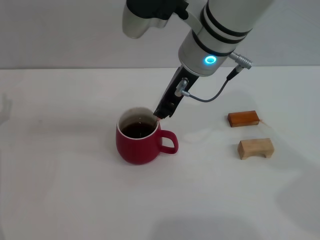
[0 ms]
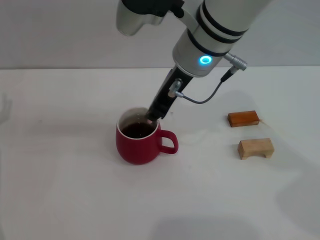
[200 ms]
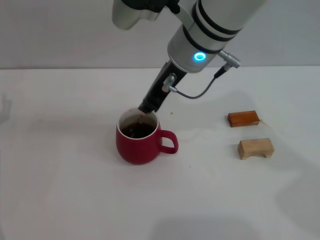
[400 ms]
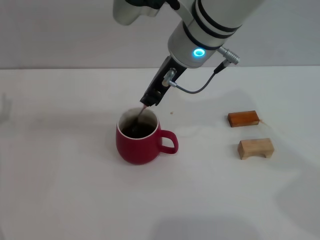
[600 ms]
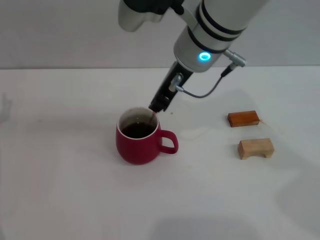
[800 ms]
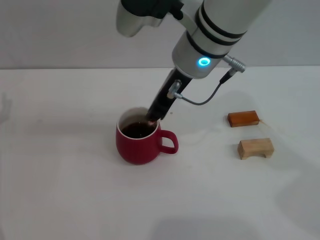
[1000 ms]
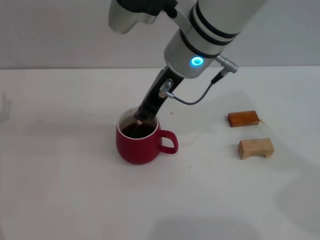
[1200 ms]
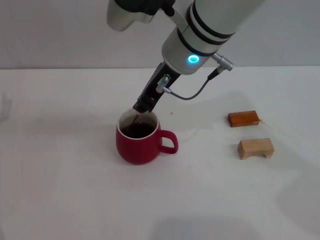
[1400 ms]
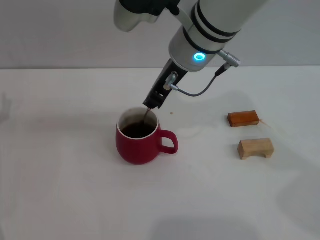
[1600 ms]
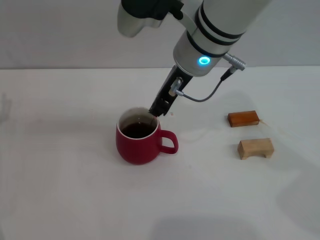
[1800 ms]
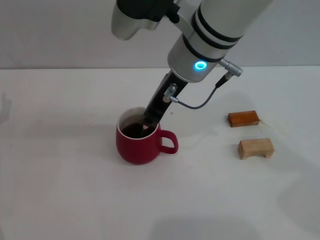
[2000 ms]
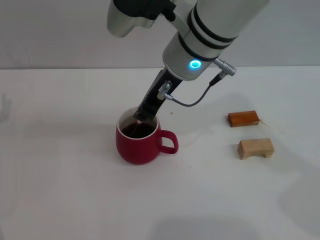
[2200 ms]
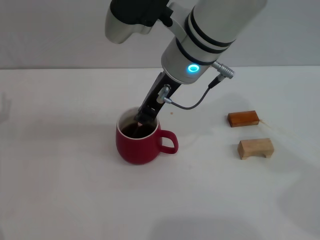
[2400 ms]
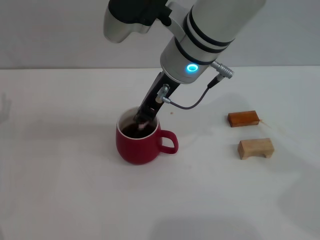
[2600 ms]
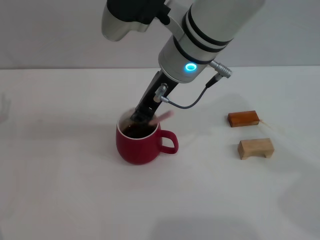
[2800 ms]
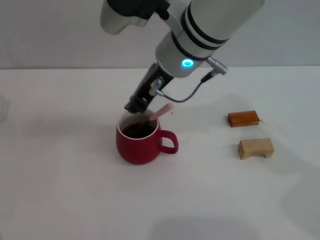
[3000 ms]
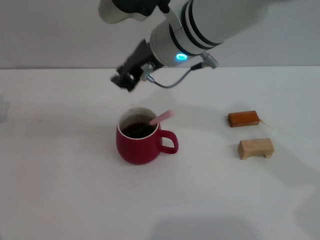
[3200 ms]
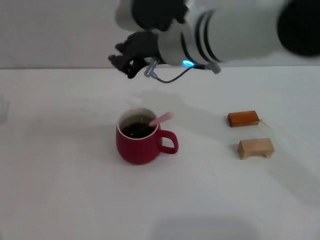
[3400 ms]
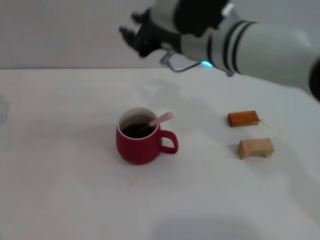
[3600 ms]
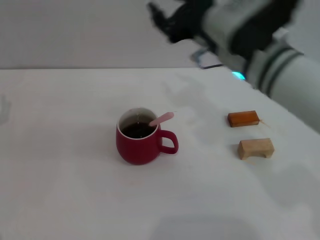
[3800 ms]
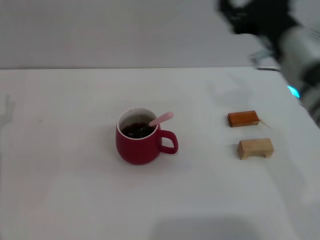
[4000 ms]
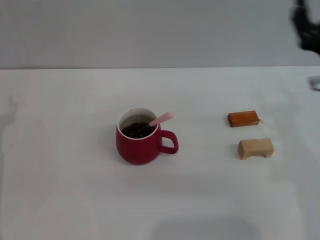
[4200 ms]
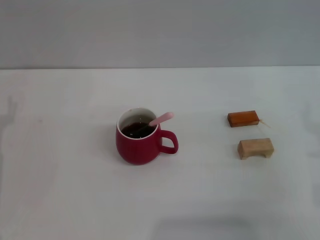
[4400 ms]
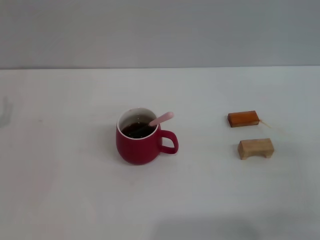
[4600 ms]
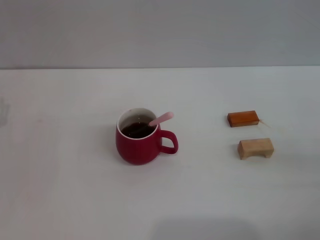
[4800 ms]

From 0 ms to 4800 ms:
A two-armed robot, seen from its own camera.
Task of the whole recording: Move the red cup to the center, lift the pink spoon, stir it three times in the cup, and put the spoon into the cup.
Step, from 0 ms to 3000 ms: Stir the coffee in the cup with the right gripper.
From 0 ms to 1600 ms: The grippers make only small movements.
From 1600 ms to 3200 ms: The grippers move only a little.
From 3200 ms to 4800 ms: The right gripper travels to the right, backward and downward by approximately 40 cm, and opens.

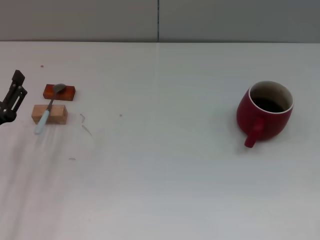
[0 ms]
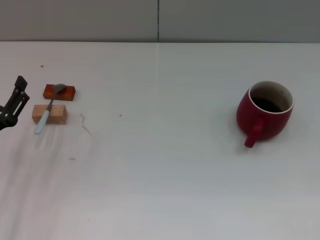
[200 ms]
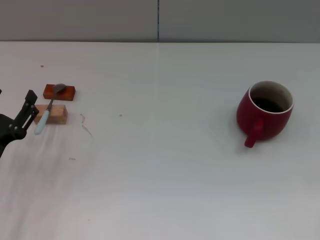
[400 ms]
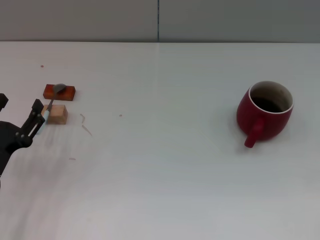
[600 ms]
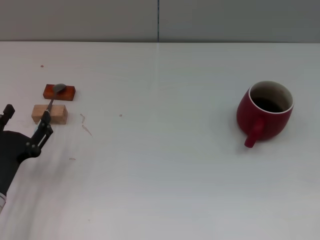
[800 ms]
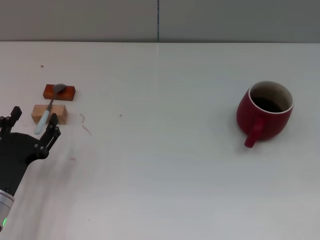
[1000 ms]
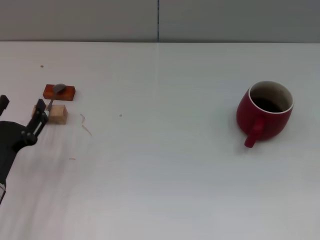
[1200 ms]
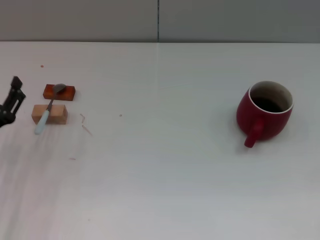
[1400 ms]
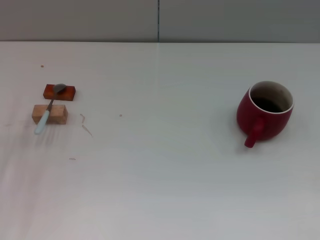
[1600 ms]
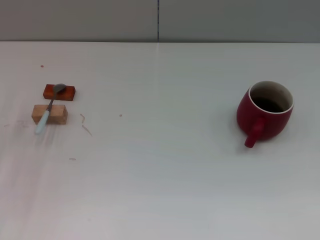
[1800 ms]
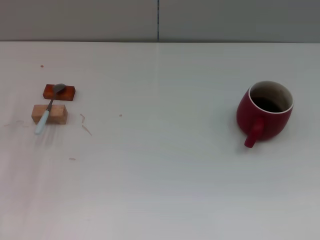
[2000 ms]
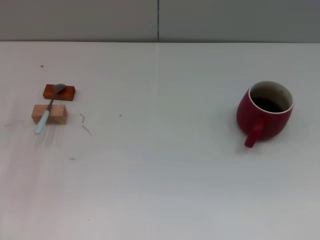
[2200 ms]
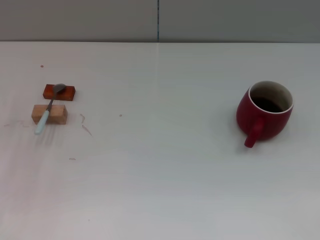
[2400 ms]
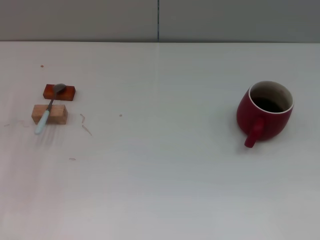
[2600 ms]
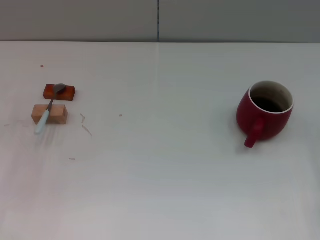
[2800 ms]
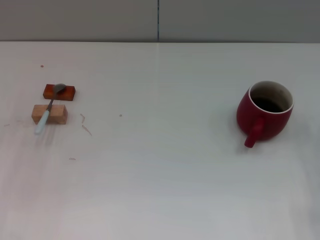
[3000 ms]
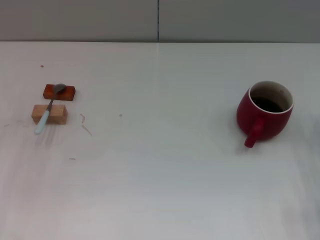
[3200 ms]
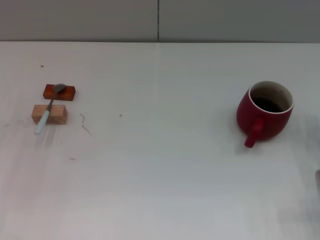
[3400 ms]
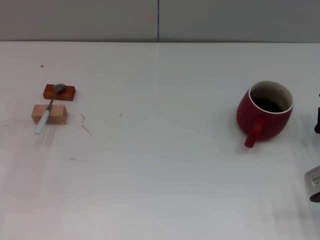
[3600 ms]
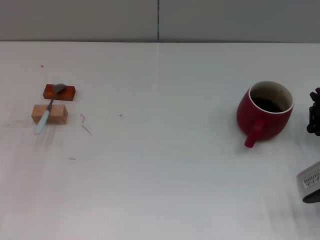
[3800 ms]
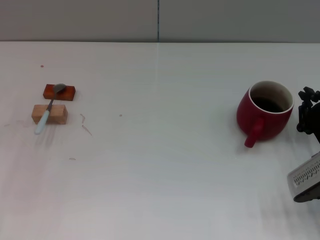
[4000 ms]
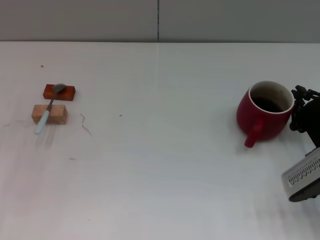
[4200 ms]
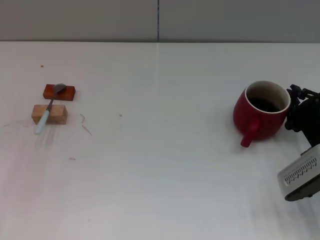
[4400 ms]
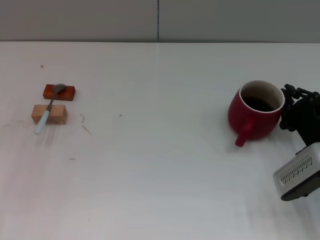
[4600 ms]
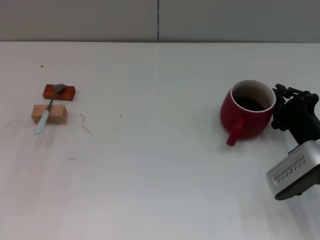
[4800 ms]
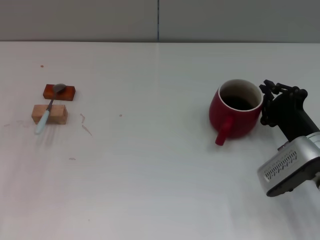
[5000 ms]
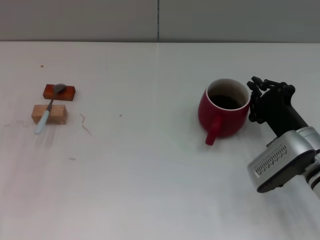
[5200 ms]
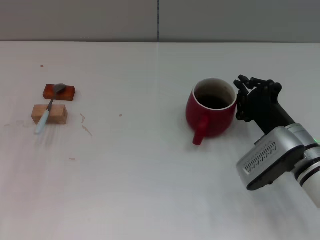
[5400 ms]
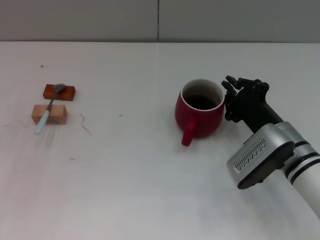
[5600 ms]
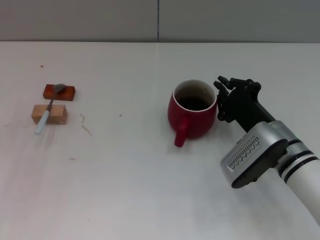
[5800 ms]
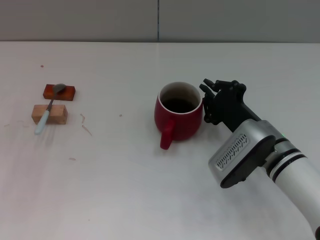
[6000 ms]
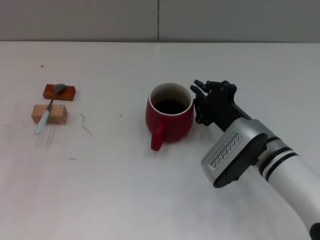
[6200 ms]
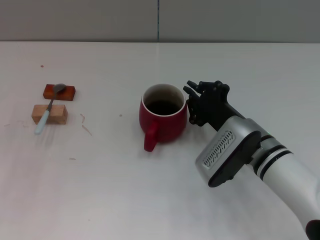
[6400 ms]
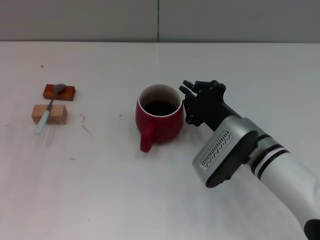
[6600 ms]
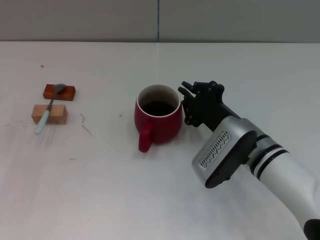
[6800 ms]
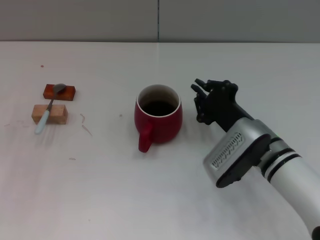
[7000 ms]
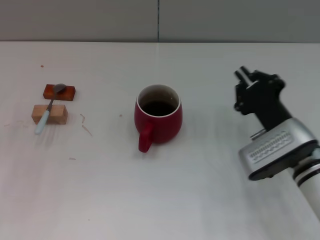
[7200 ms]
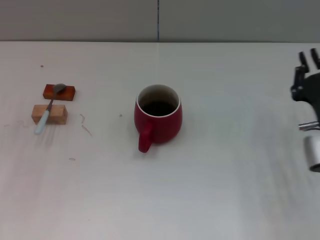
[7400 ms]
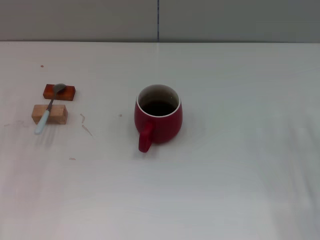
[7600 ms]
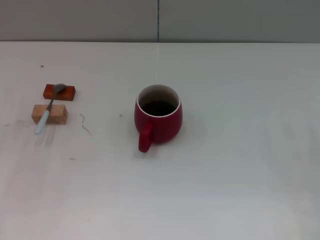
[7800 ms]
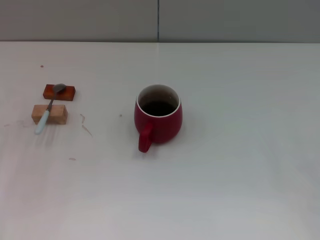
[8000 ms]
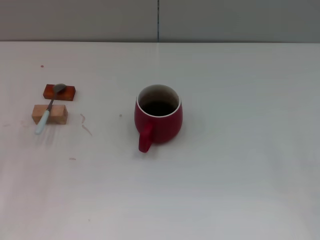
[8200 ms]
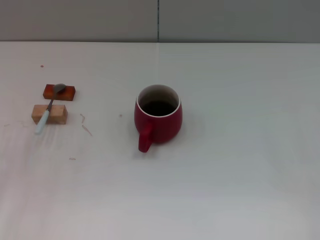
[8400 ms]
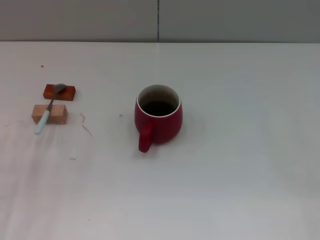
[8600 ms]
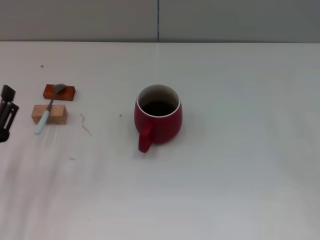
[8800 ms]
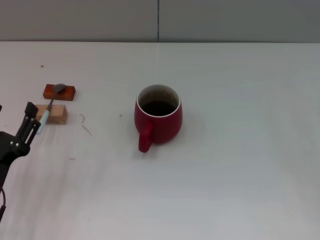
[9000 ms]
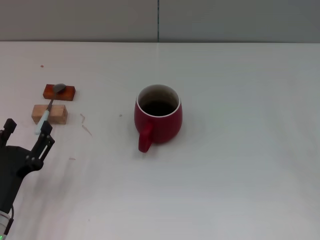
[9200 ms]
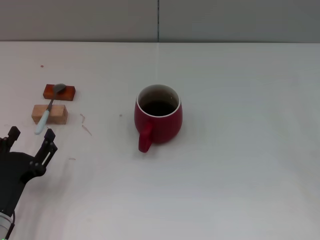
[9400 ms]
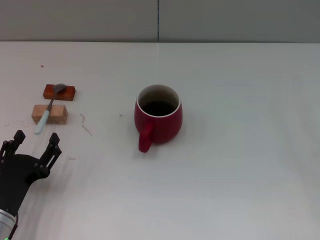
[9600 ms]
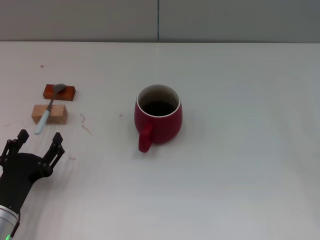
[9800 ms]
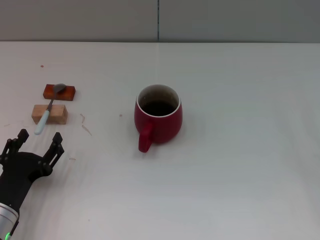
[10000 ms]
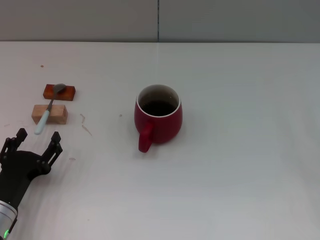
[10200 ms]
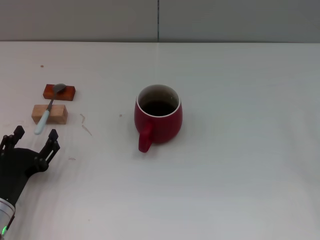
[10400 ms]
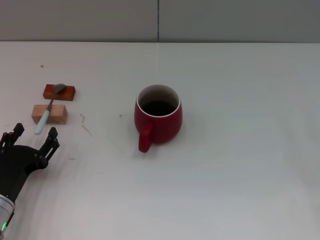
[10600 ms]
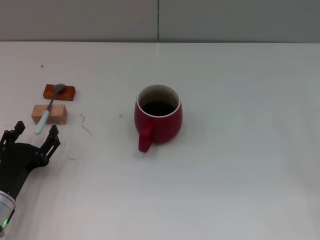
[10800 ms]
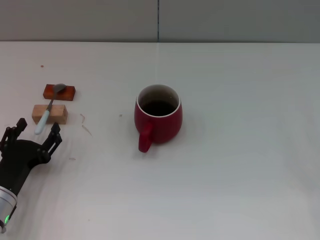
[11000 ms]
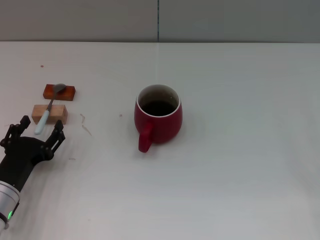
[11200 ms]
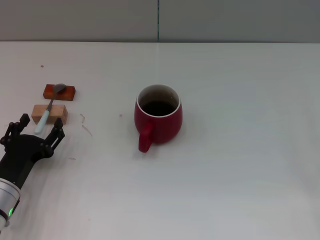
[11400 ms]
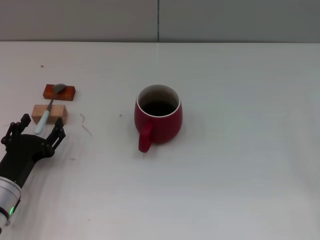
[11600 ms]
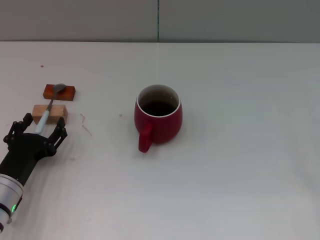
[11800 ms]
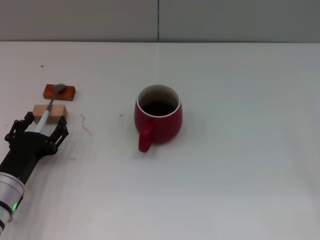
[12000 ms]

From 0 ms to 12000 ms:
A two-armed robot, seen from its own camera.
Task of the whole recording: Move the red cup to the center, lift the blue spoon, stir it three times in the cup, and put the spoon into the cup.
Step, from 0 ms to 7000 ms: Move the cup with coffee to the center of view with the right gripper.
From 0 ms to 1600 ms: The left gripper moves roughly 5 cm.
From 3000 ms to 4400 ms: The right gripper goes some 5 cm to the left.
From 4400 ms to 6000 ms: The right gripper moves to the left, roughly 10 cm.
From 6000 ms to 7600 ms: The right gripper travels to the right by about 15 cm.
From 7600 ms to 9000 ms: The left gripper goes roughly 15 cm backward, to the right and downward.
From 9000 ms to 12000 ms: The grippers move only a little.

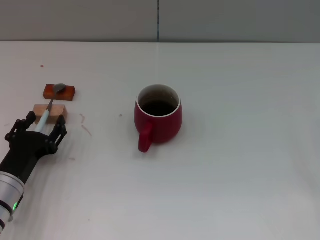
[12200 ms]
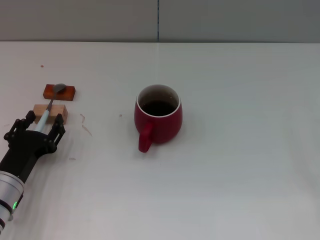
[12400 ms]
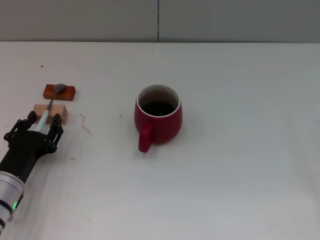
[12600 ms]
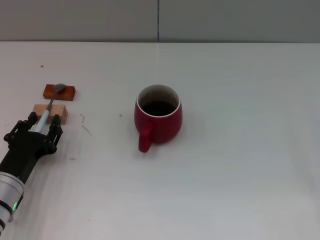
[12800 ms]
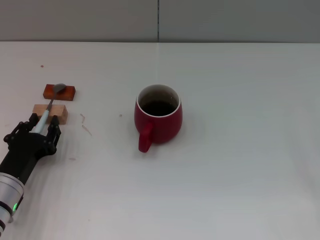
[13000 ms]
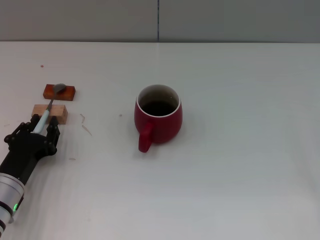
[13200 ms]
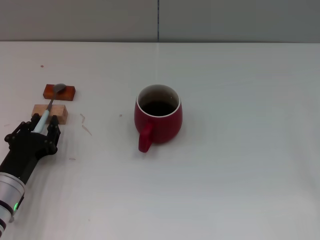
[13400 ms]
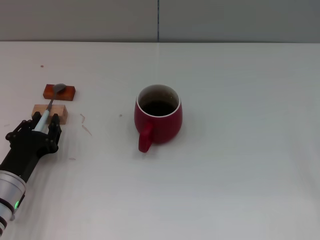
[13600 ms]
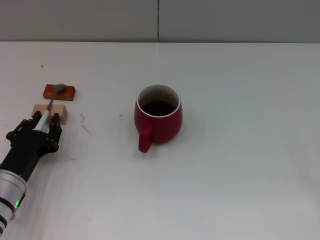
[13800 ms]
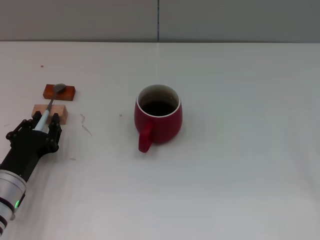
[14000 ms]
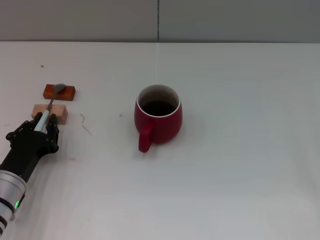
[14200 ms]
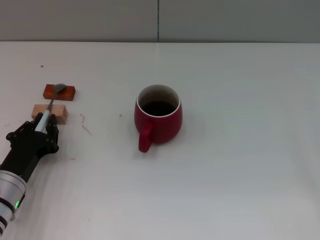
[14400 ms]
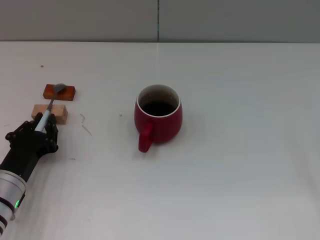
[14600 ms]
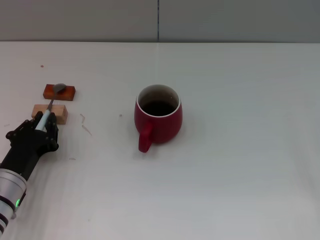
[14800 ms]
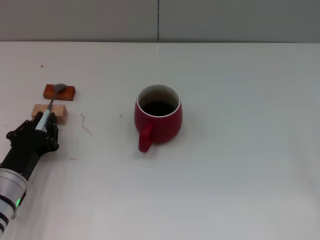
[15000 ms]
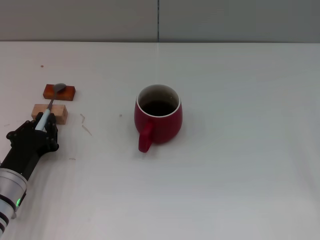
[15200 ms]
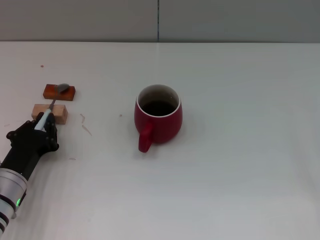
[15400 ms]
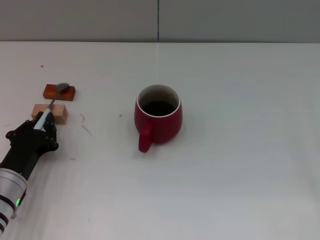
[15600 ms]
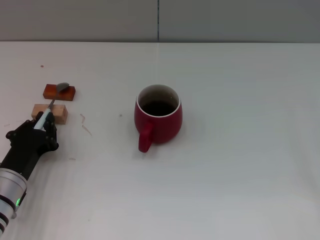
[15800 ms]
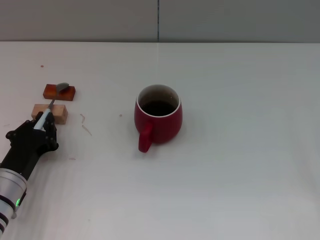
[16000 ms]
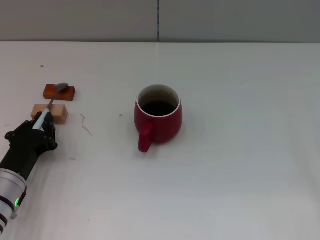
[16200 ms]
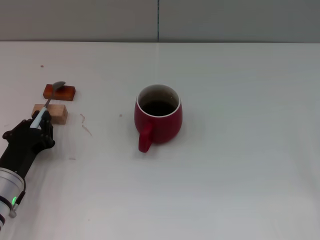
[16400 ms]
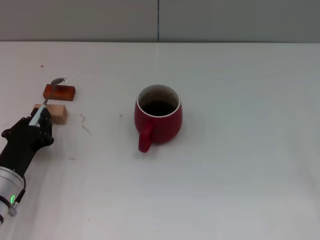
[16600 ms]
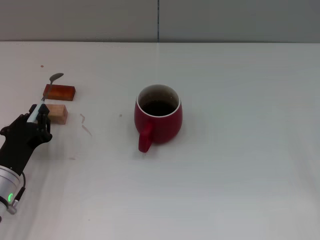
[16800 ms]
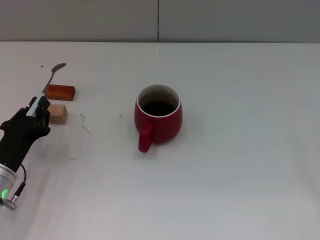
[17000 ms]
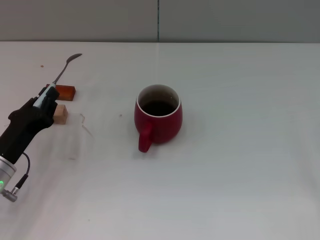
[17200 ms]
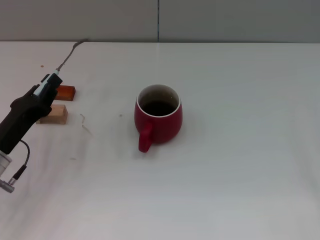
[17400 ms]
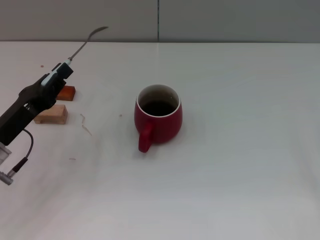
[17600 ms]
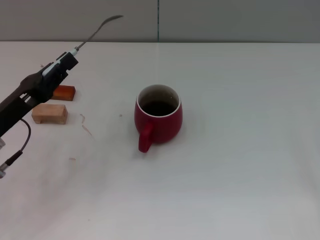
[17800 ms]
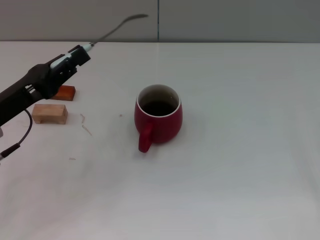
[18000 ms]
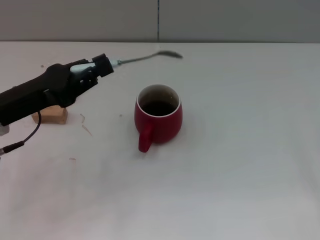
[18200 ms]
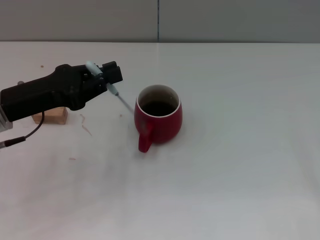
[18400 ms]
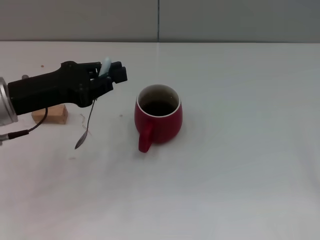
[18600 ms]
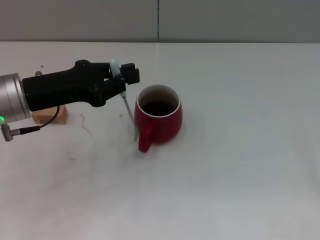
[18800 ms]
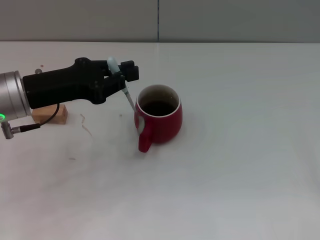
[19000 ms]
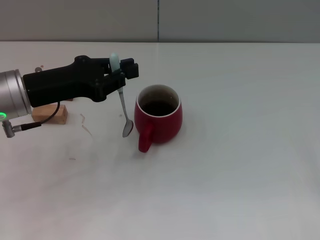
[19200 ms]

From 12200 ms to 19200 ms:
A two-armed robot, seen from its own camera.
Task of the whole recording: Move the red cup to the center, lift the blue spoon, stir it three times in the cup, and put the spoon into the cup.
Step, from 12200 ms to 17000 ms: Pick up the spoon with the left gripper.
From 12200 ms to 13600 ms: The left gripper closes.
From 13600 ms to 15000 ms: Both grippers stay about where they are.
From 15000 ms to 16400 ms: The grippers stay close to where they were, moving slightly.
From 16400 ms to 17800 ms: The left gripper shifts some 10 cm upward.
From 17800 ms to 19200 ms: The left gripper moves upward and forward, about 10 cm.
